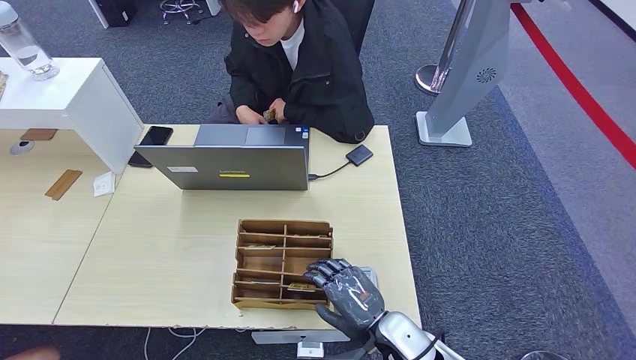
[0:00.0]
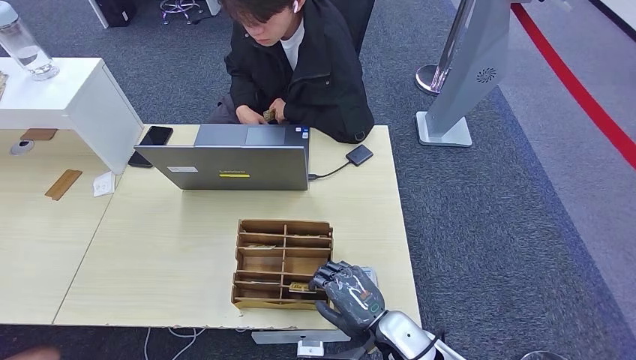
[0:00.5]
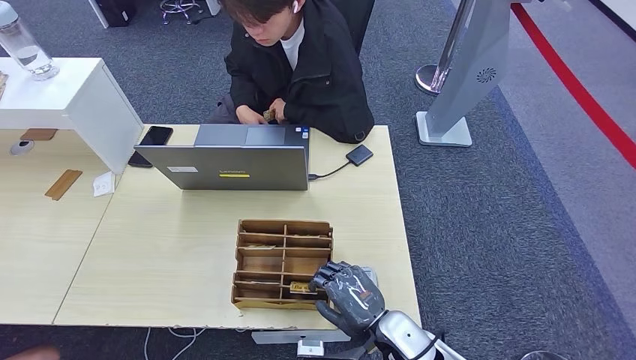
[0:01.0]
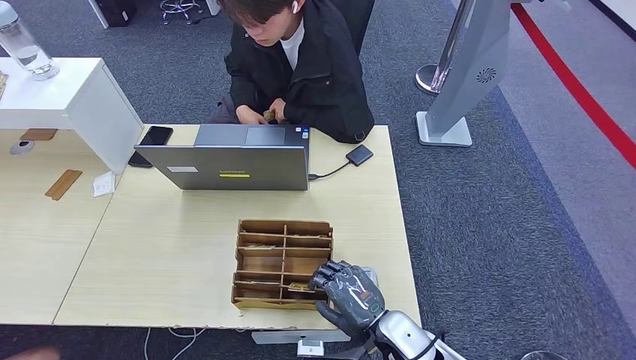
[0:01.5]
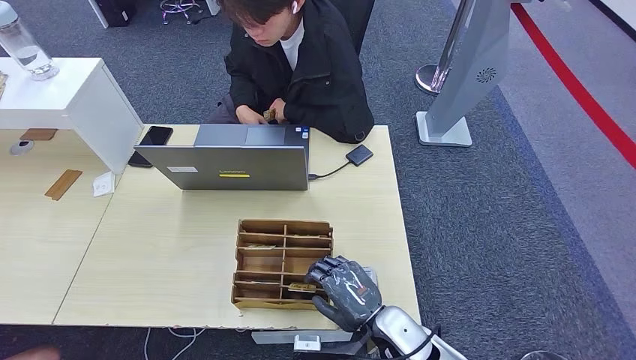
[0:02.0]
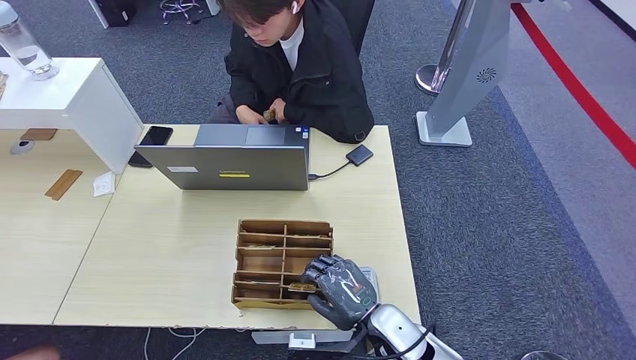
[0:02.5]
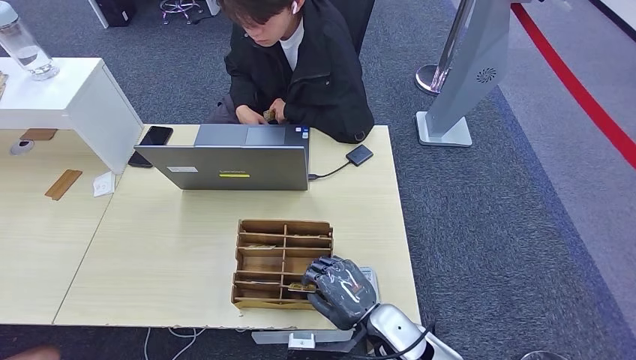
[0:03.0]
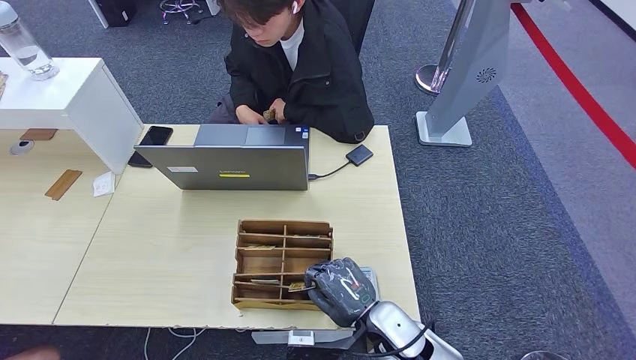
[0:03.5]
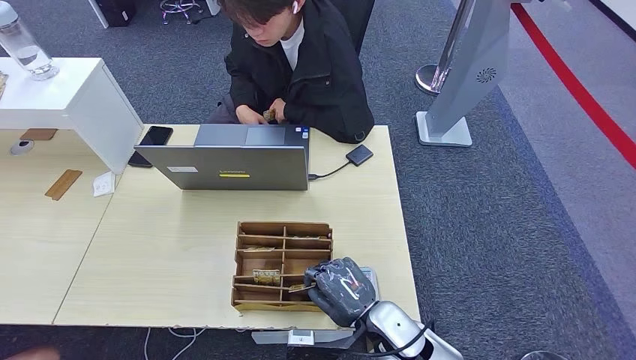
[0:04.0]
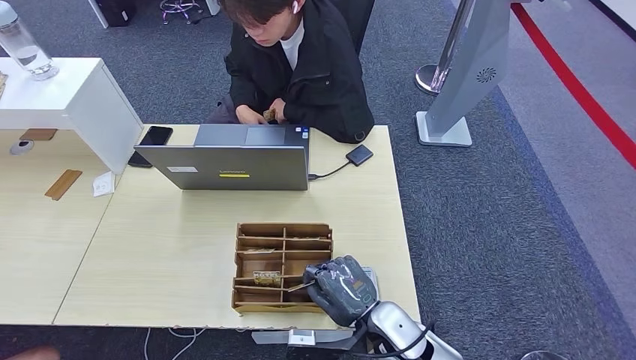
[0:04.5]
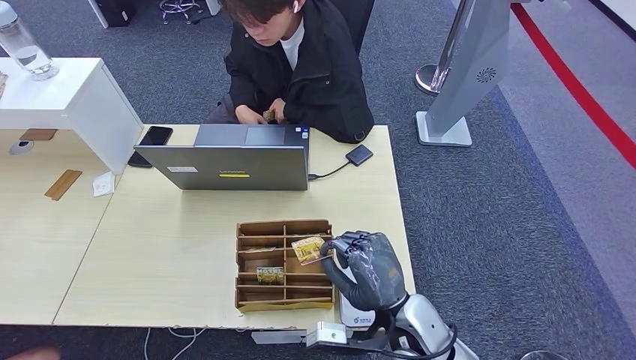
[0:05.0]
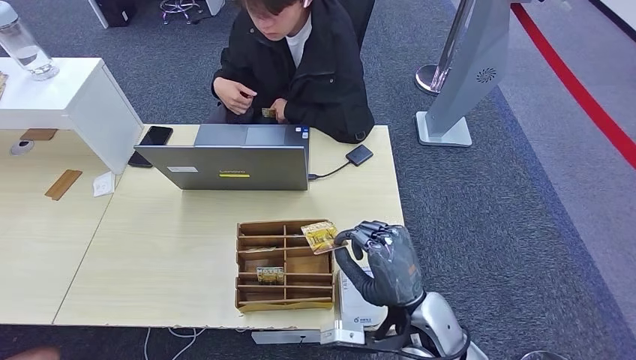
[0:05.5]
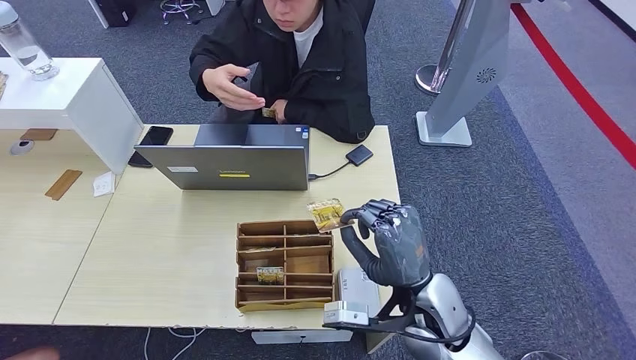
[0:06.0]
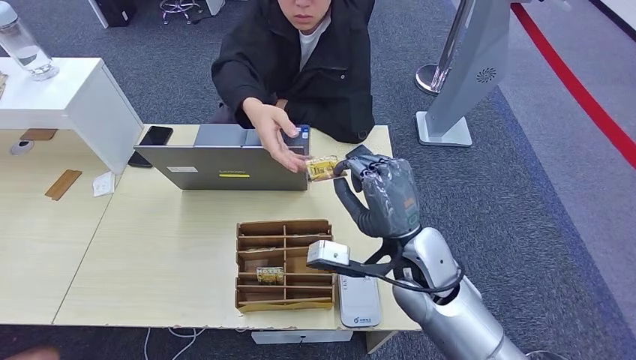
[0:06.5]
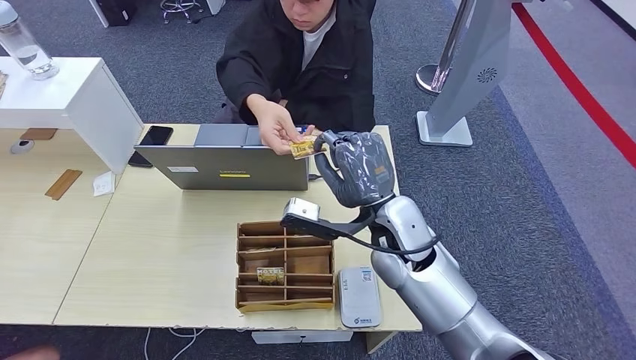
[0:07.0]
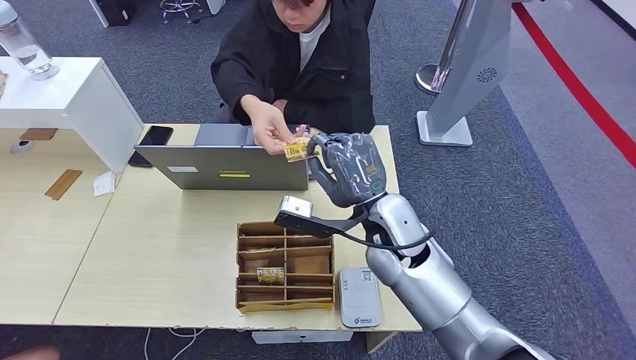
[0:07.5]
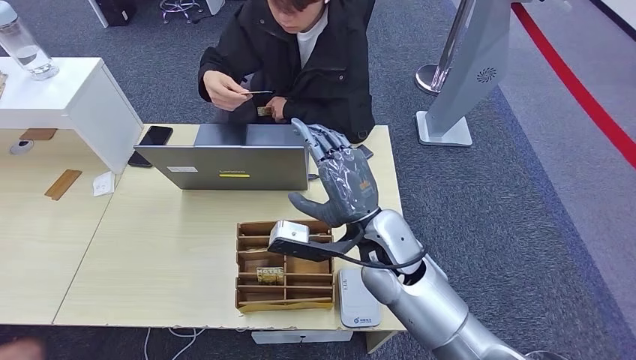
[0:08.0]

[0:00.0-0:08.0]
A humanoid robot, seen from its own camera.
Step, 0:00.0 to 0:04.0: Pick up the room key from the key card box.
Step, 0:05.0 to 0:08.0: Hand the room key to the person.
0:00.0 to 0:02.0: The two hands keep their place.
0:02.0 to 0:04.0: Neither hand changes place.
0:04.0 to 0:06.0: The right hand is displaced upward by about 10 cm.
0:06.0 to 0:08.0: The right hand is displaced forward, to the left and upward by about 10 cm.
